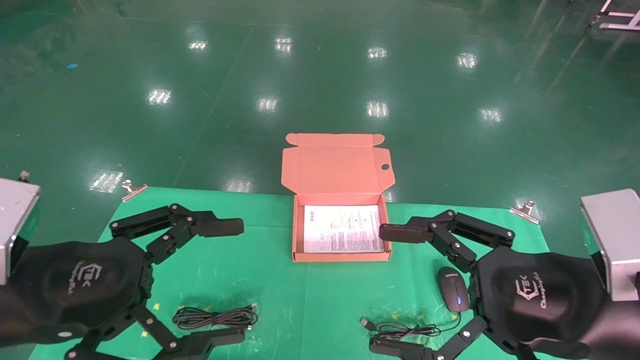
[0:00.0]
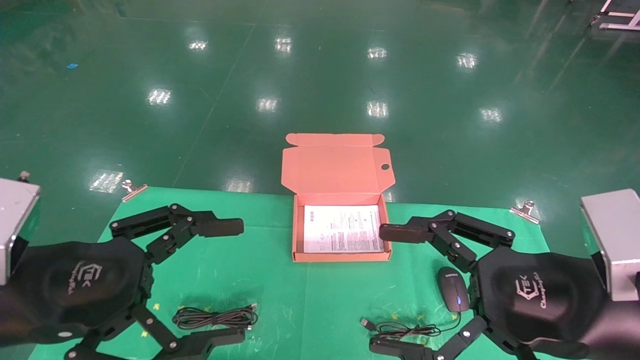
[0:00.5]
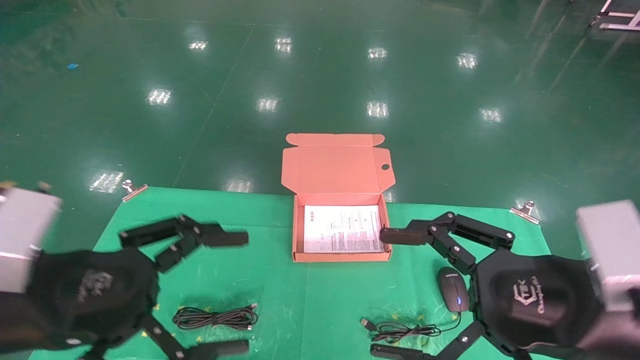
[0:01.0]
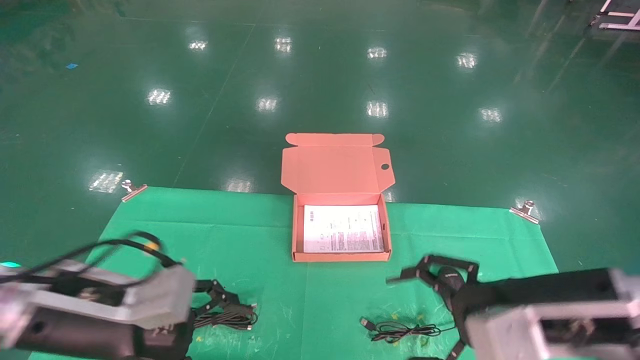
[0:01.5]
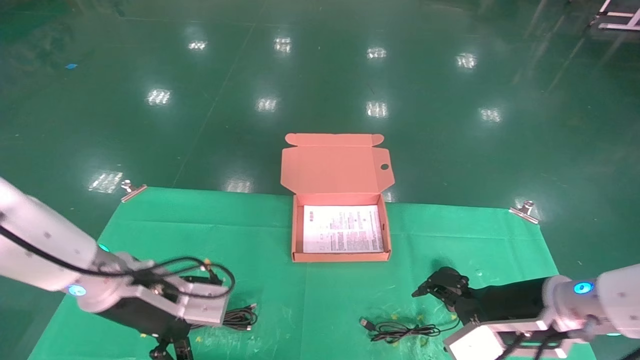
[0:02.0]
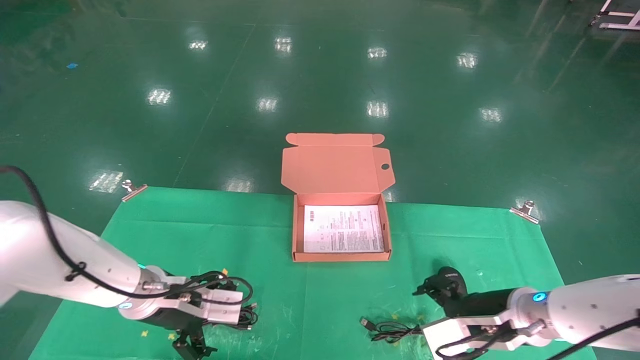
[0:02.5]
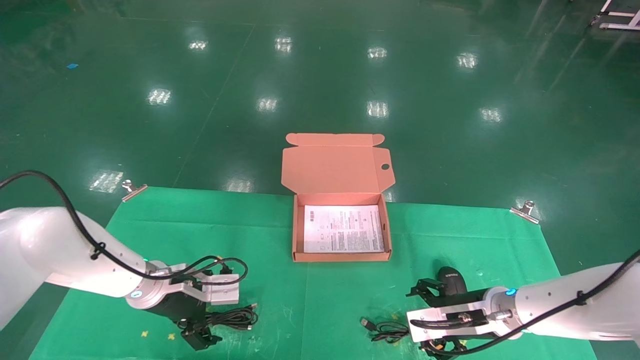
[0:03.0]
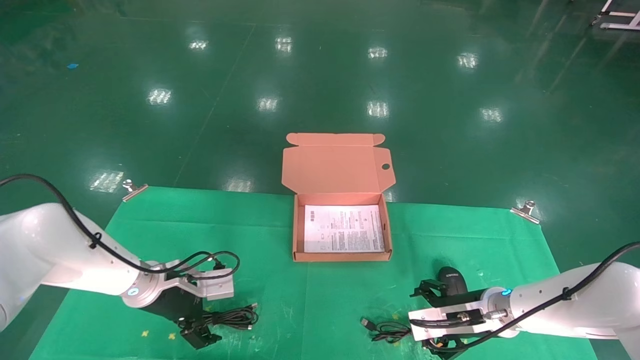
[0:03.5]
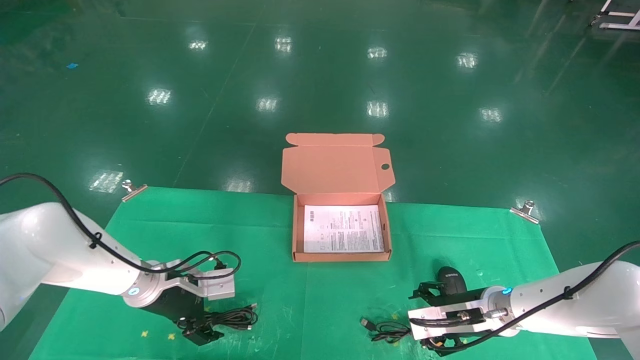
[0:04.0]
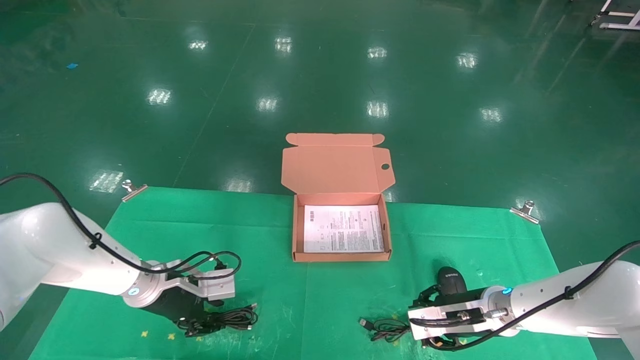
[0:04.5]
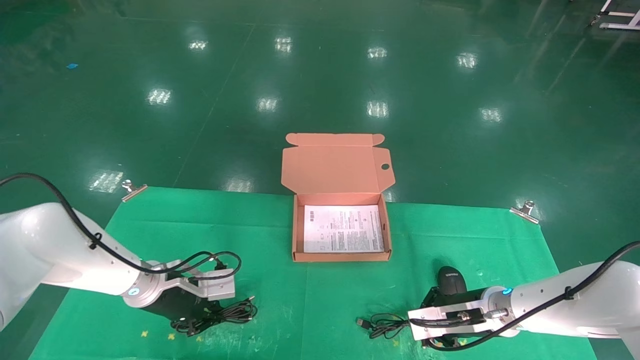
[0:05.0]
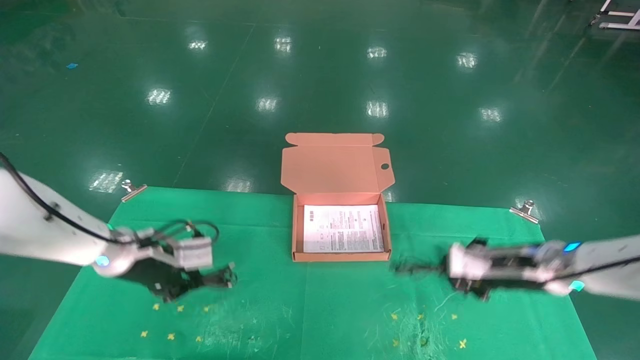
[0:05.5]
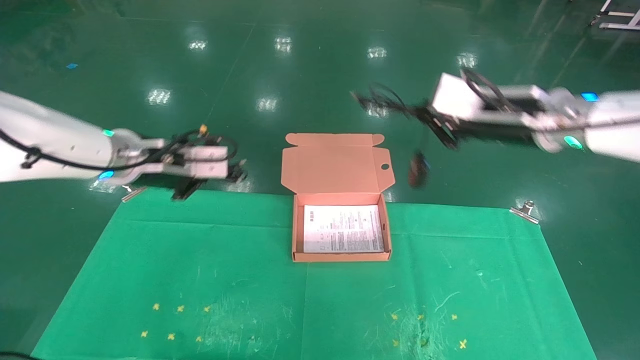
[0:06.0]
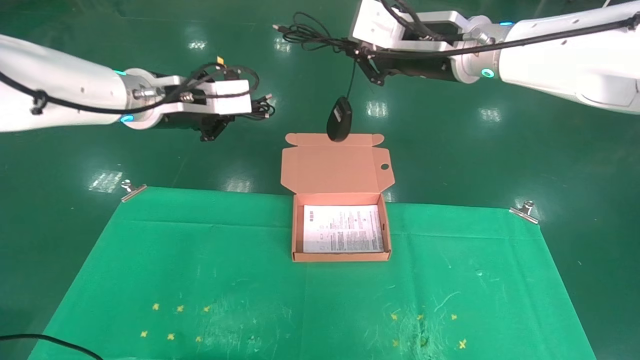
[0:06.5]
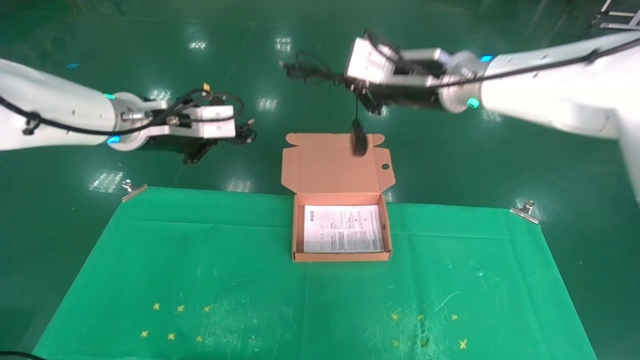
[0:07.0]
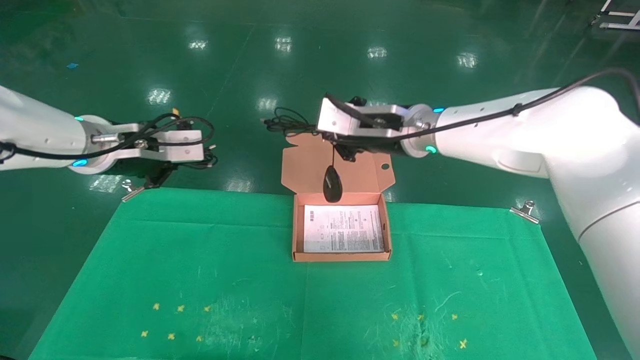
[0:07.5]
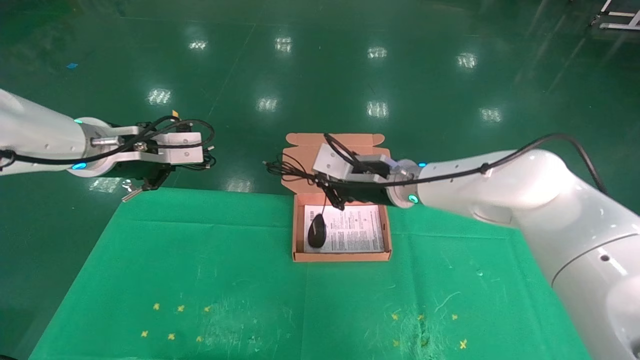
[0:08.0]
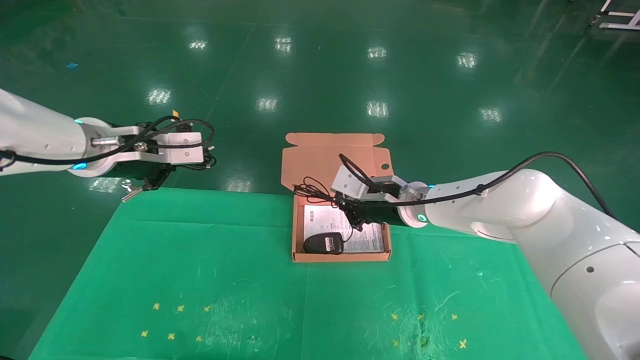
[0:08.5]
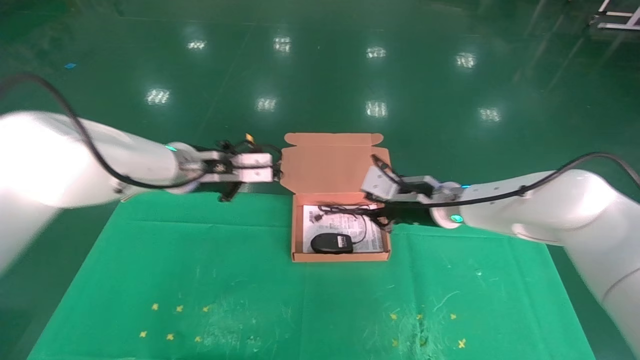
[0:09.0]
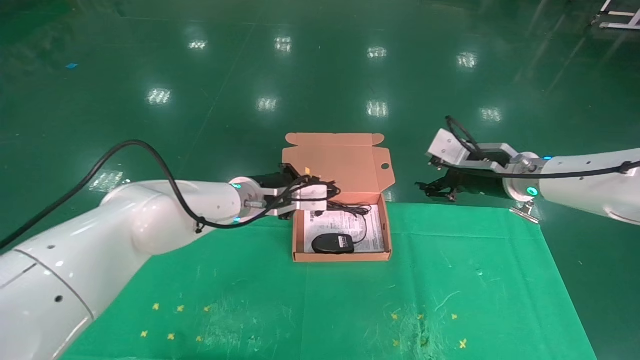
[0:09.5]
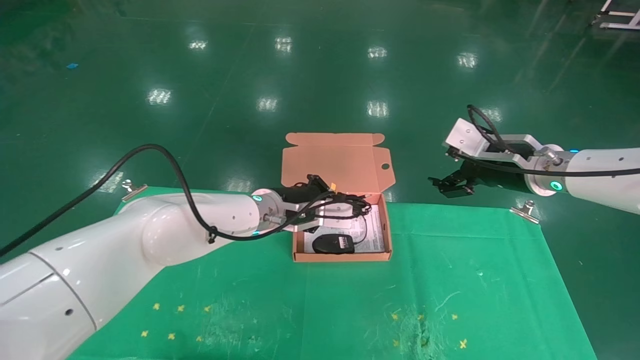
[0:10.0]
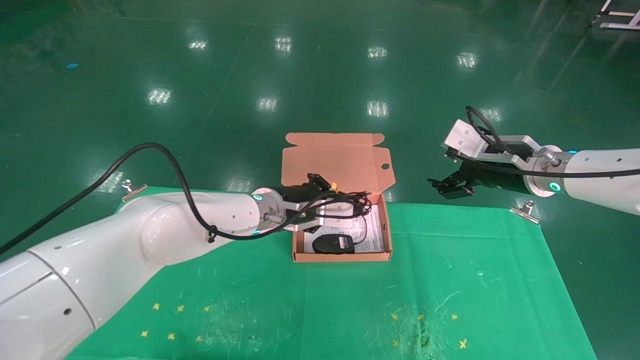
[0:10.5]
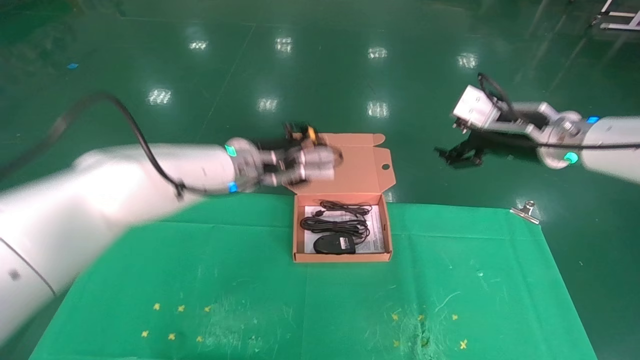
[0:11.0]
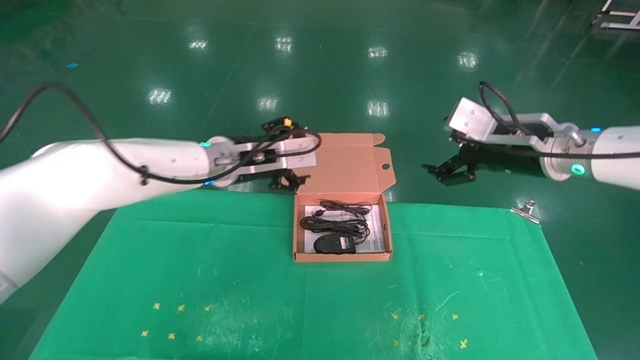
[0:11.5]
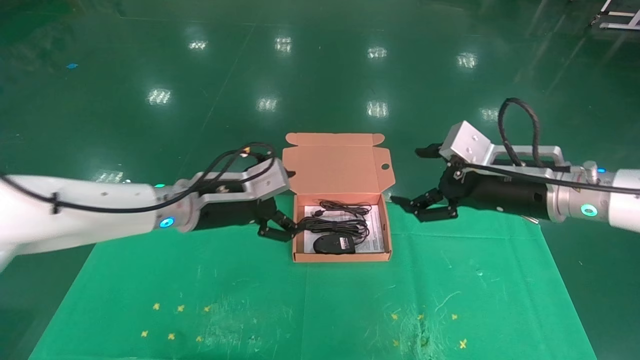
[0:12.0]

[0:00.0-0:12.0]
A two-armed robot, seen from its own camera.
Task of the whole recording: grasp data cable left put into box grasp mouse right put into box.
Step, 0:01.0 to 0:05.0: Grab and pick up both the mouse and power cord from the accessory packaging area at the same time.
Step, 0:05.5 to 0:11.0: Place the mouse and power cord into the box.
0:00.0 to 0:02.0: Both grippers move forward and downward, roughly 15 cm.
0:02.0 to 0:04.0: The grippers both shift forward and downward by some 15 cm.
0:04.0 to 0:06.0: The two grippers go approximately 25 cm upward. The right gripper closes up. The left gripper closes its fingers.
0:06.0 to 0:08.0: The right gripper travels to the left, downward and forward by some 20 cm.
0:08.0 to 0:10.0: The right gripper moves to the right, about 20 cm, and opens, while the left gripper is displaced to the right, downward and forward by some 25 cm.
0:10.0 to 0:12.0: The left gripper travels to the left and backward by about 10 cm, and opens up, while the right gripper goes about 10 cm backward.

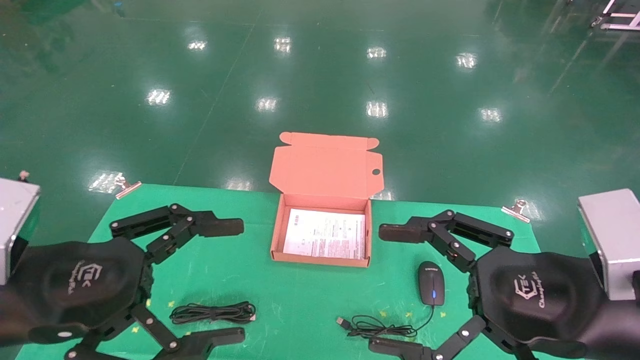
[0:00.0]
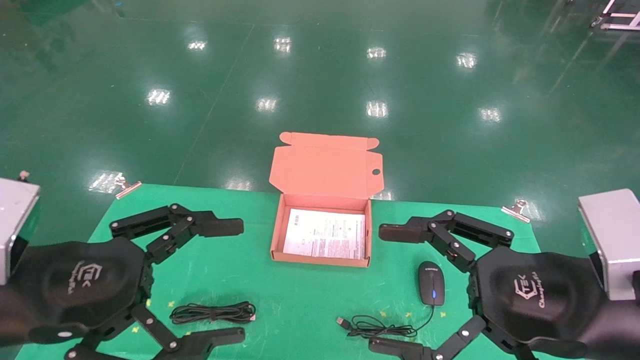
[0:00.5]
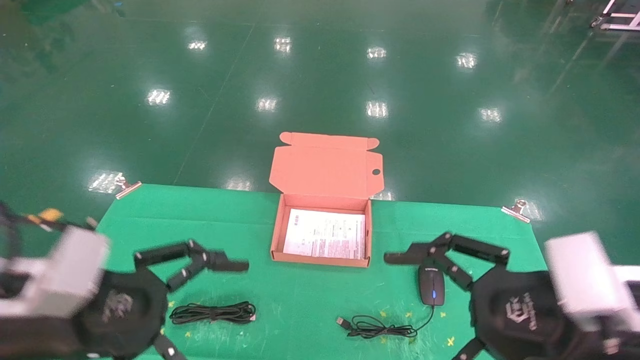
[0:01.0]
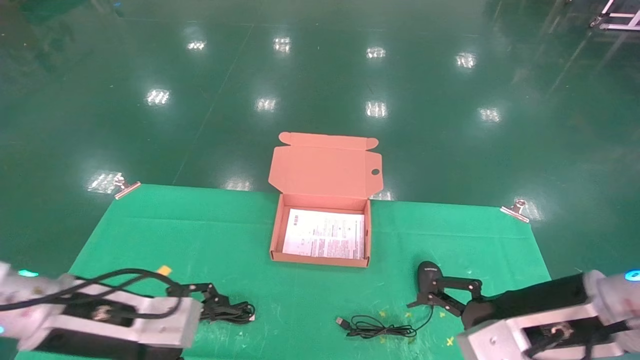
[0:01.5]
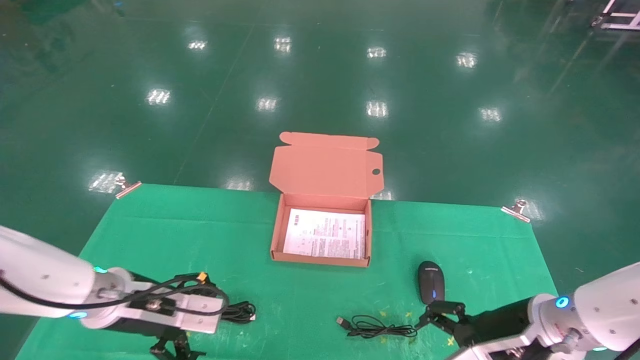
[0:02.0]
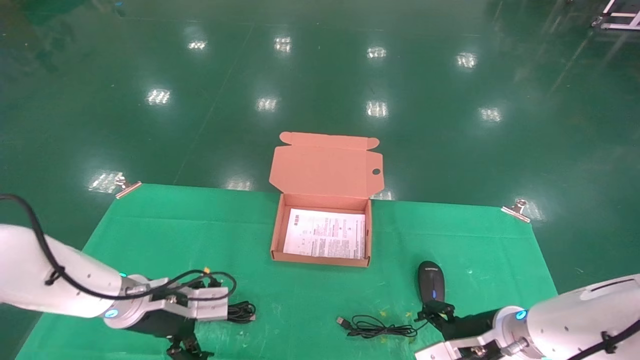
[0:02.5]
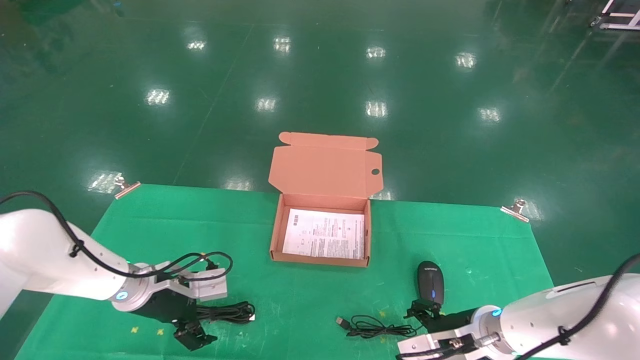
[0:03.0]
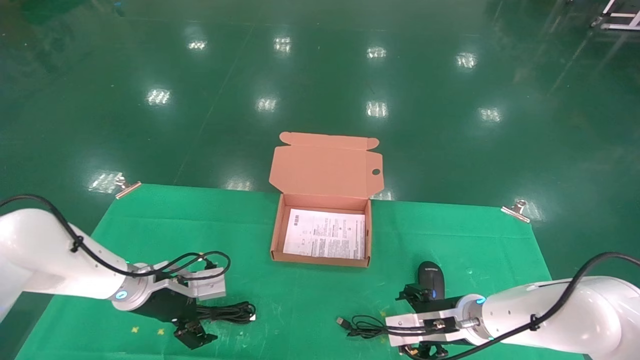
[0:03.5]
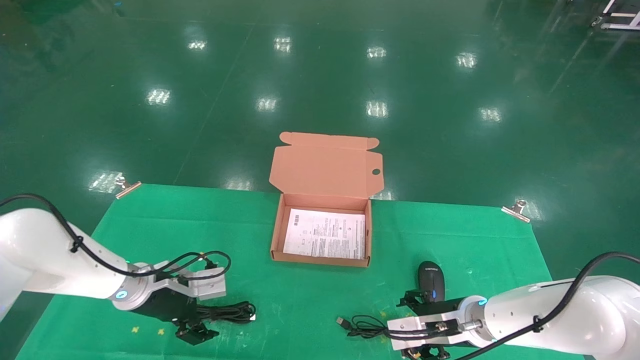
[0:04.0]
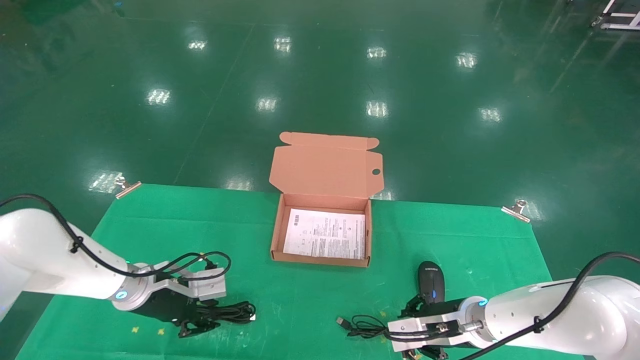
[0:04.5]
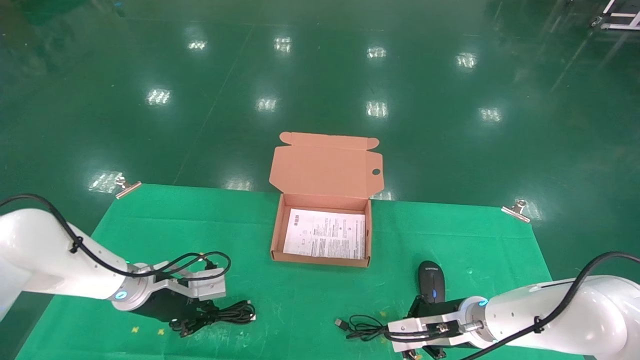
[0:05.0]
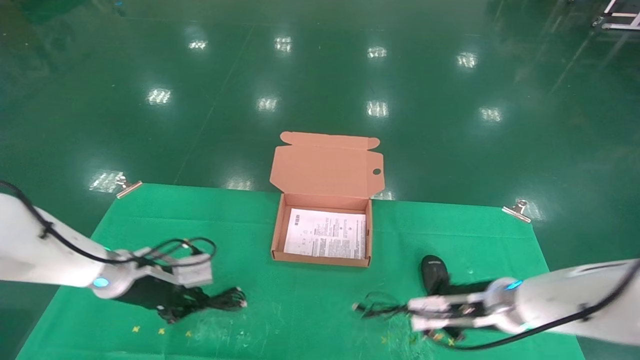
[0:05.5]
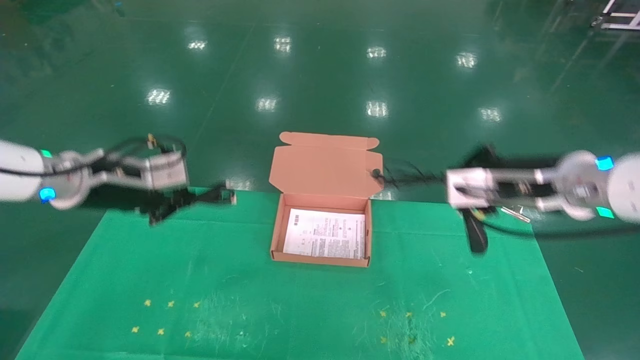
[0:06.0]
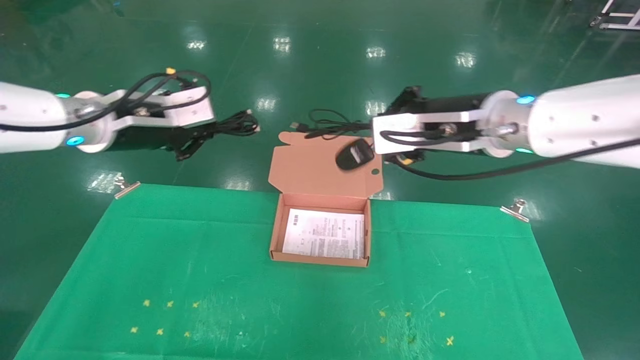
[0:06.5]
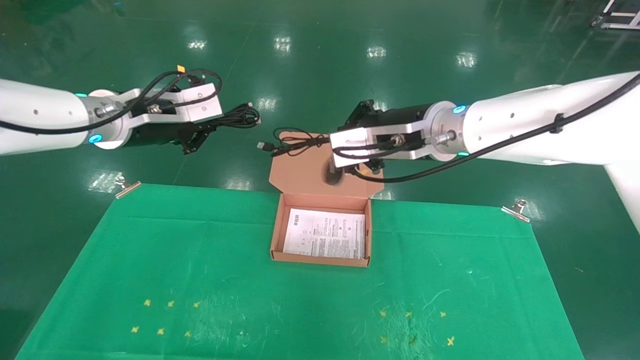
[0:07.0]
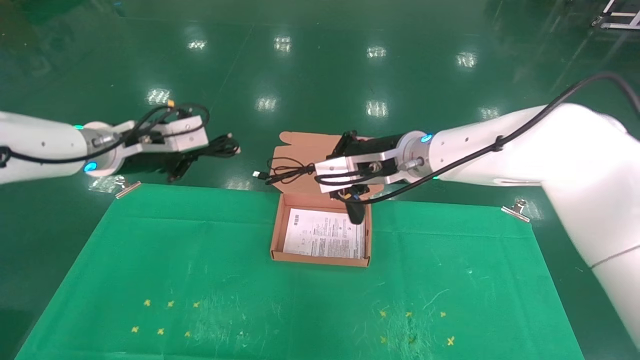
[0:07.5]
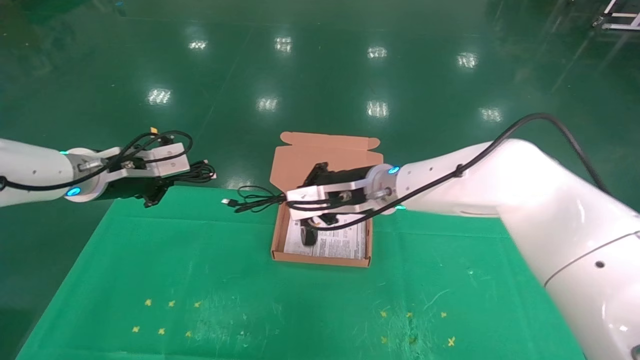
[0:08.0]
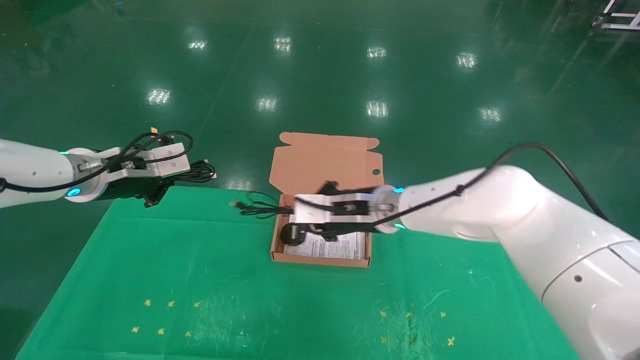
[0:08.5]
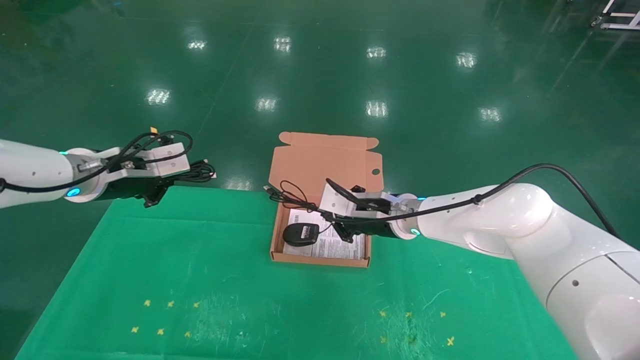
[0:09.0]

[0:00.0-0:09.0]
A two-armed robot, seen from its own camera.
Task of the whole recording: grasp data cable left put into box grasp mouse right put into box.
Step, 0:01.0 to 0:05.5: Grab and pick up both the mouse and power cord from the accessory packaging area at the same time.
0:00.0 to 0:02.0: The grippers both shift forward and downward by approximately 15 cm.
0:02.0 to 0:04.5: The right gripper moves forward and downward, about 10 cm, and closes its fingers; the left gripper shifts approximately 10 cm forward, and closes its fingers.
0:04.5 to 0:07.0: Both grippers travel together upward, about 25 cm. The right gripper closes up, while the left gripper closes.
0:07.0 to 0:09.0: The left gripper shifts roughly 5 cm downward; the right gripper goes roughly 15 cm downward and forward.
